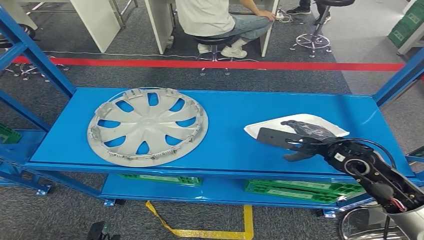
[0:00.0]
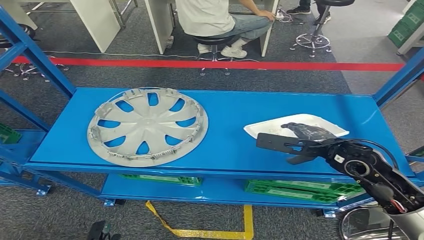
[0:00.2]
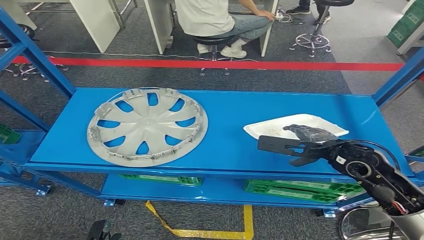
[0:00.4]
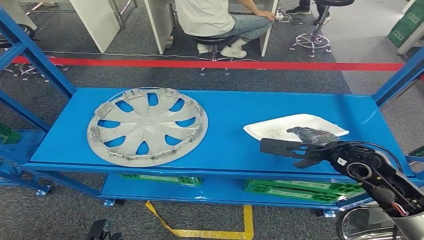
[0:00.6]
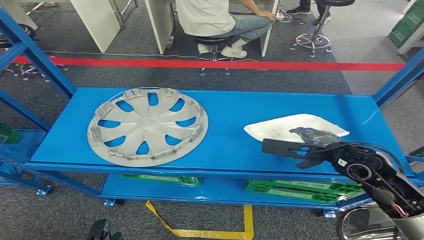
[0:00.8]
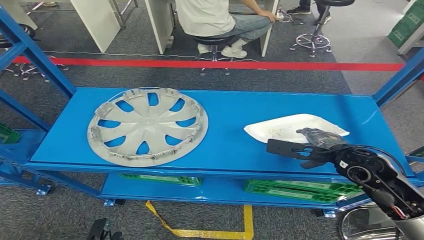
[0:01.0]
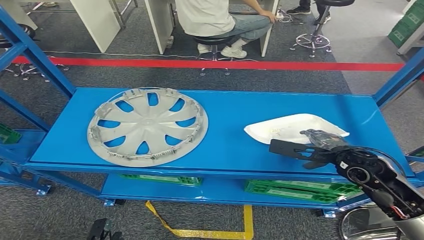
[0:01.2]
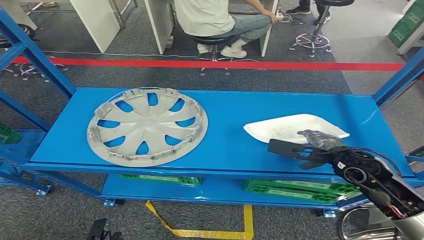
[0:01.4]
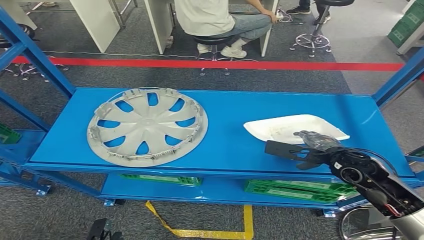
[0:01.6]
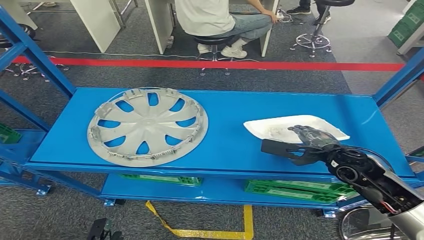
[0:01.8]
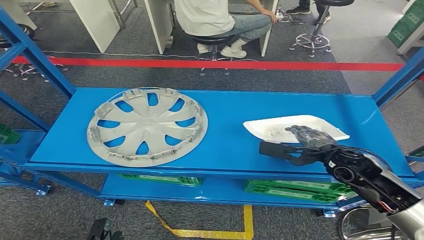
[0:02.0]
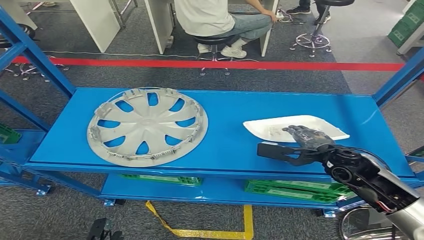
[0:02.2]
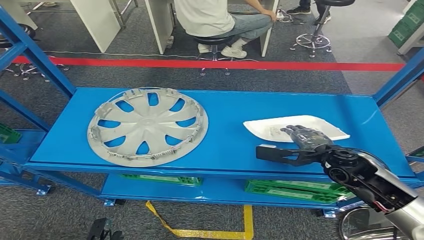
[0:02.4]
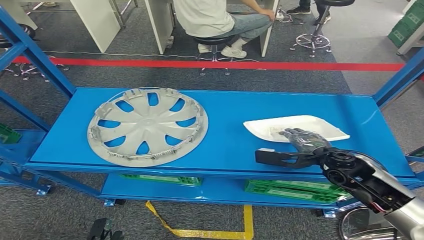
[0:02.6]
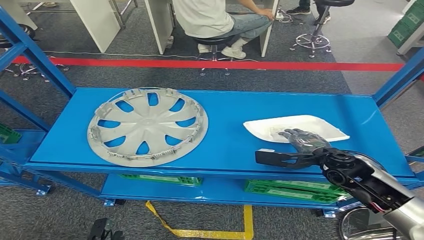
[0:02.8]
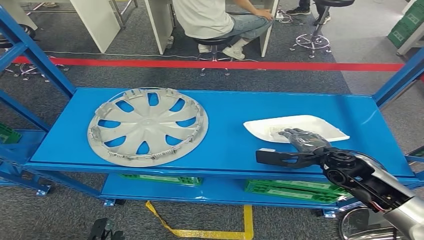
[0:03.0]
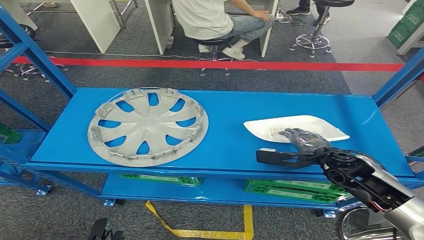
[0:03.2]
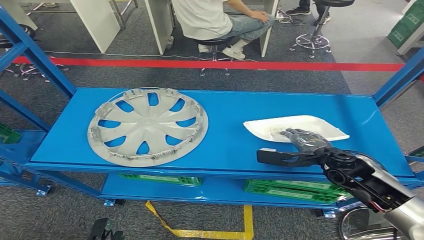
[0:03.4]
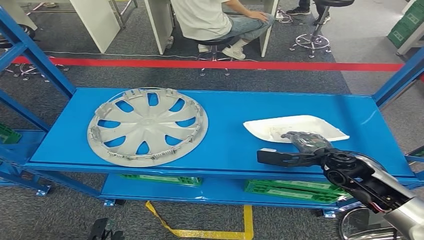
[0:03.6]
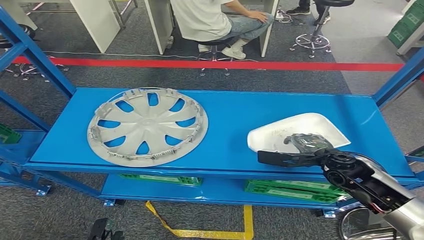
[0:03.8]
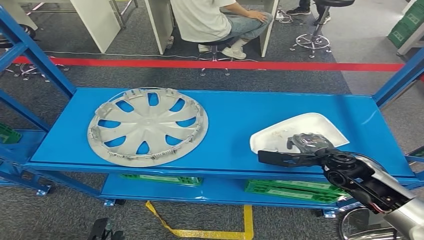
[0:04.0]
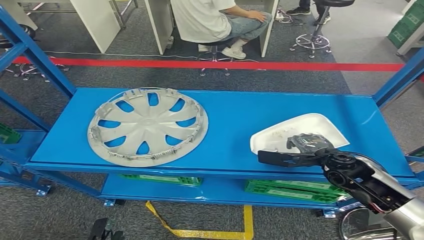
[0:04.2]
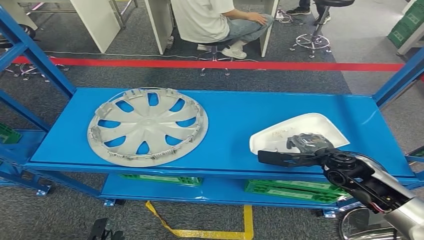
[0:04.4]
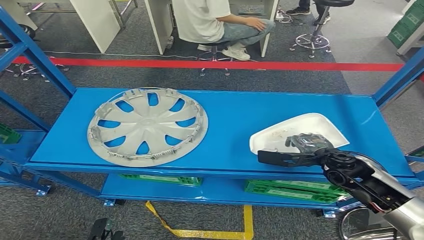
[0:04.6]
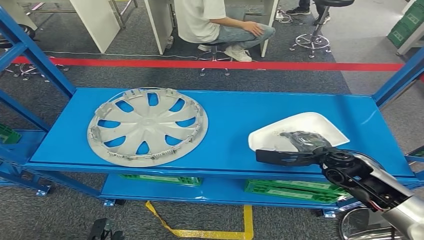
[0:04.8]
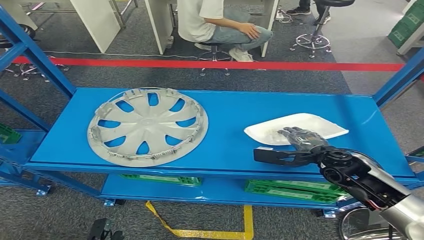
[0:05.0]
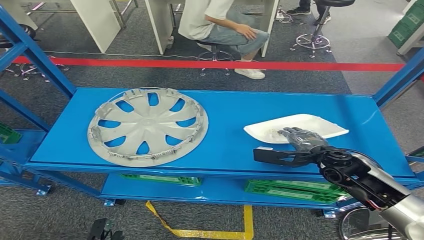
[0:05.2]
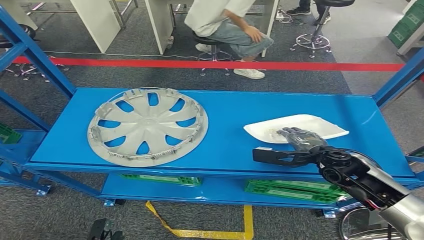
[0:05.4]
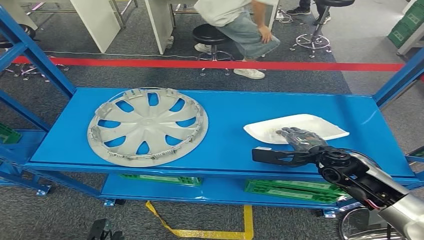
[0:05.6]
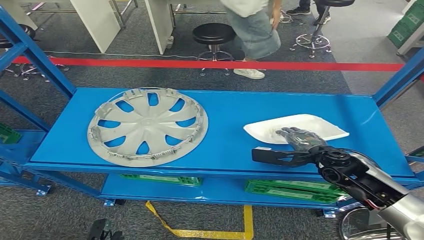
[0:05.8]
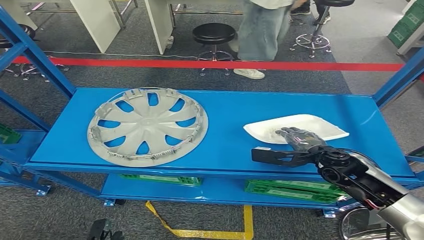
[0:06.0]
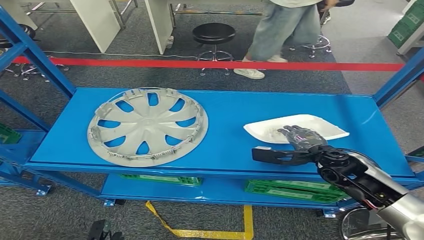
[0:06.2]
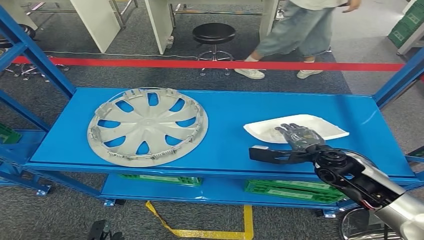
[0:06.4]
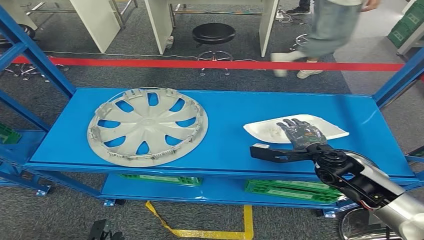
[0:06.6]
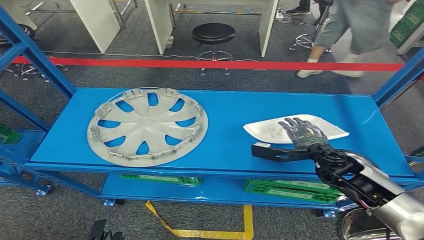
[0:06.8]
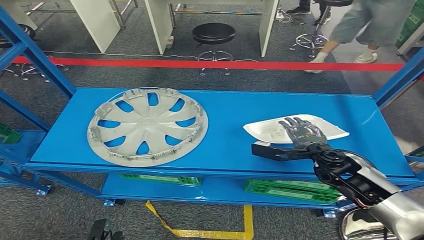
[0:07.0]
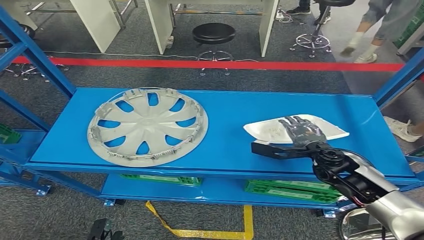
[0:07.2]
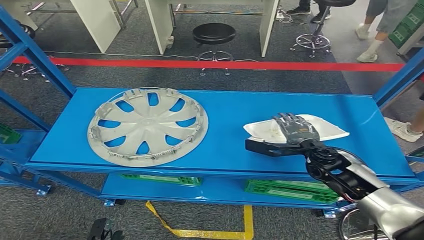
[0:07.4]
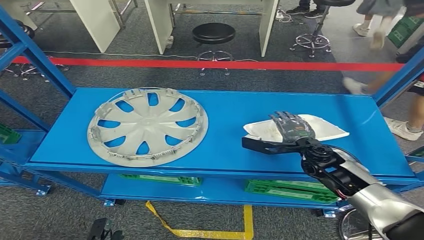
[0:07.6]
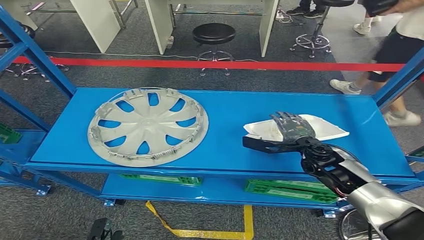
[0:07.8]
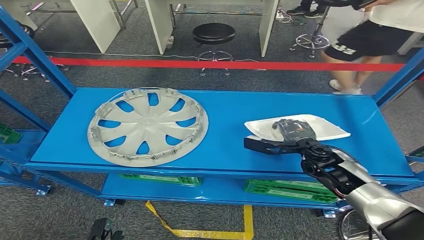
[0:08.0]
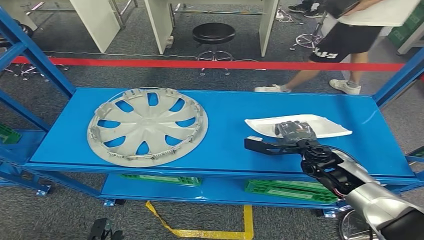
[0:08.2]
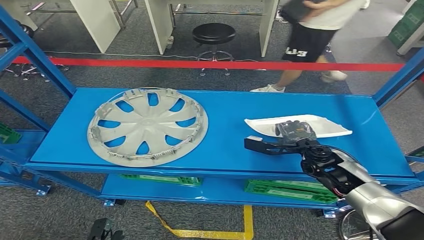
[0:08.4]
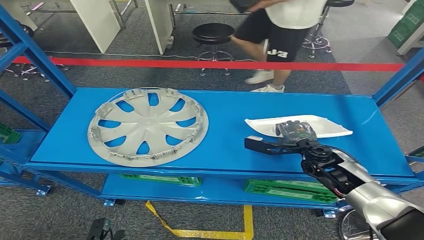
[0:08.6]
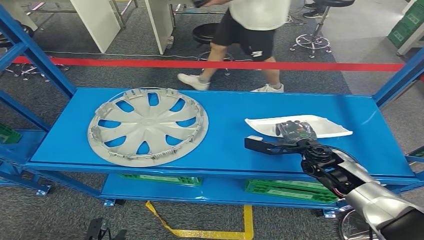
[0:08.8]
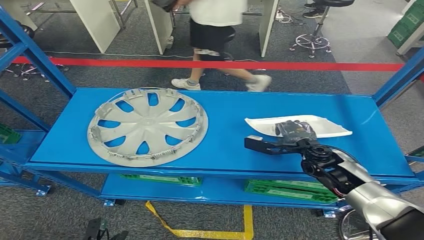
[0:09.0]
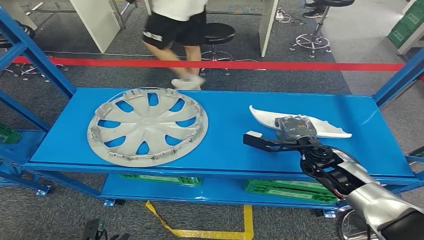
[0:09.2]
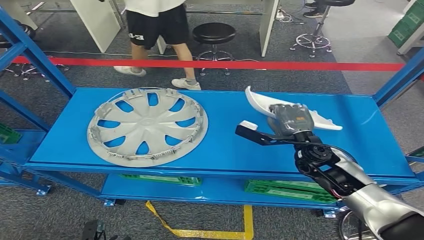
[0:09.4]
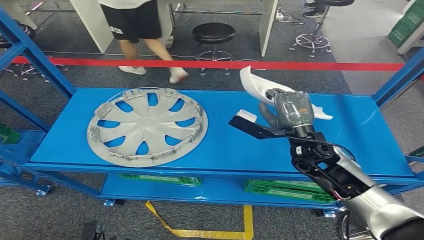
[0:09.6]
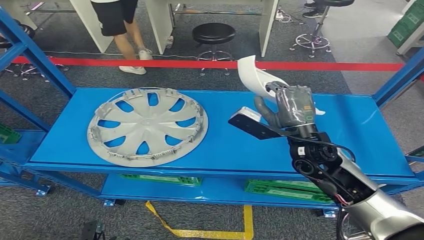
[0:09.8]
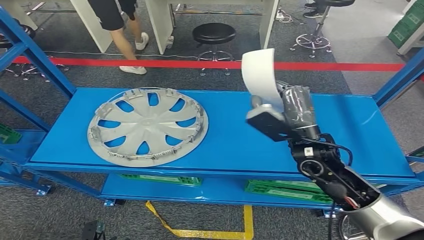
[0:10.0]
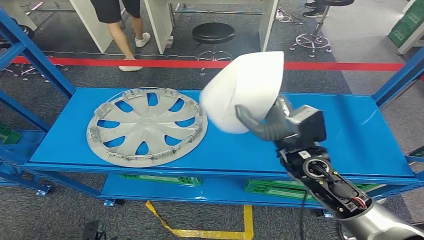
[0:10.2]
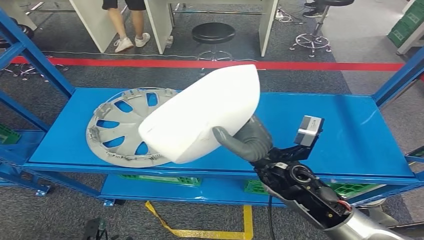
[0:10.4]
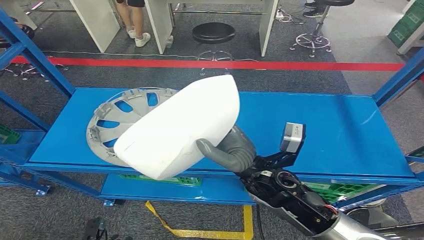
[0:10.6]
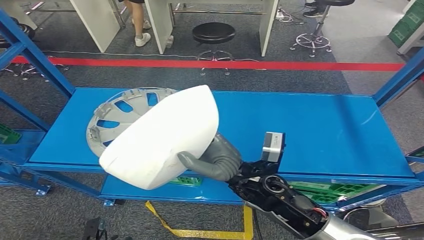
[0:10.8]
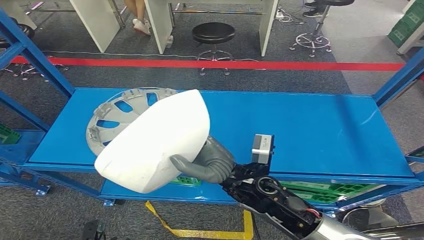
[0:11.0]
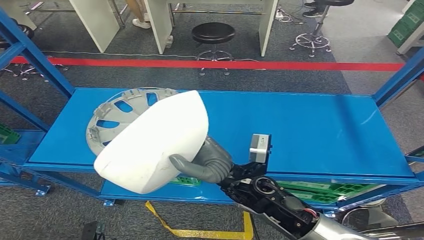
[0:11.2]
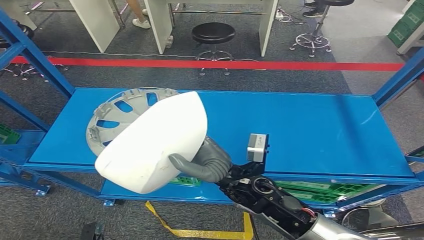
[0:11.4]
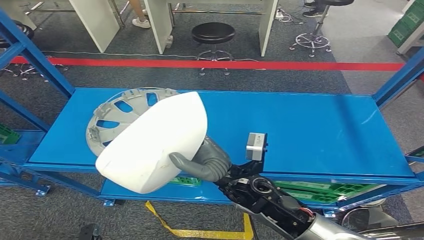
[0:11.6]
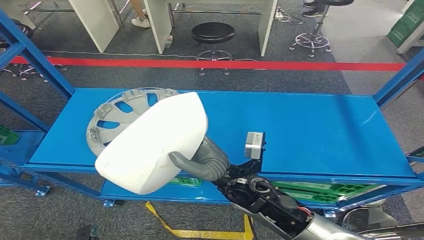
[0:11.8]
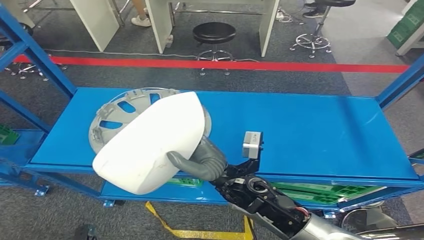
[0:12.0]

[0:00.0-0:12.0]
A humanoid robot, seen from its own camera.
Step, 0.0 to 12.0 s: Pick up the small parts from the shelf.
0.0 to 1.6 s: The hands stay close to where they were, moving slightly.
1.6 to 3.0 s: The hands move only a little.
3.0 to 4.4 s: Neither hand changes place.
4.4 to 9.0 s: The hands make only small movements.

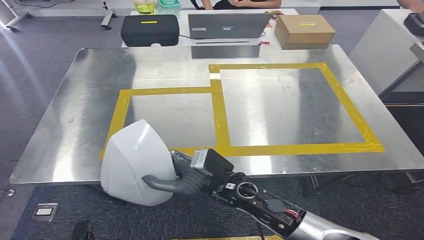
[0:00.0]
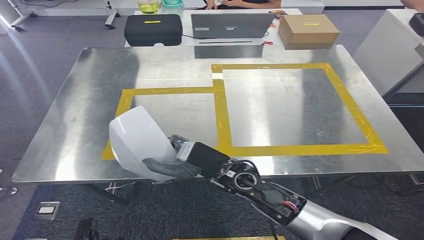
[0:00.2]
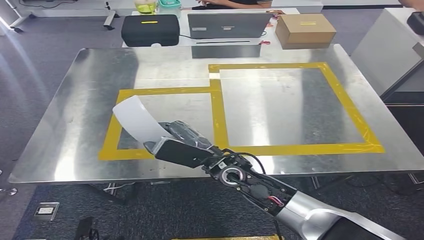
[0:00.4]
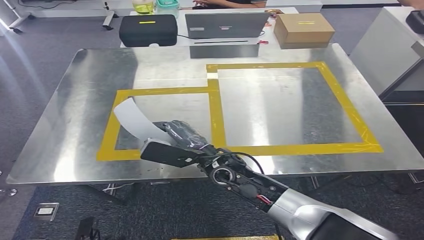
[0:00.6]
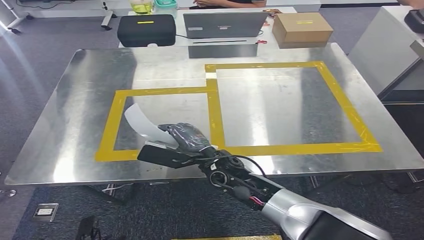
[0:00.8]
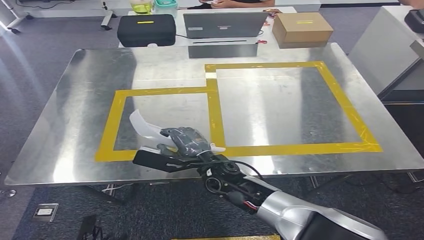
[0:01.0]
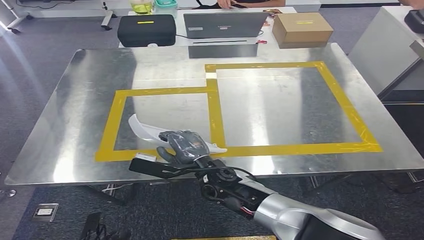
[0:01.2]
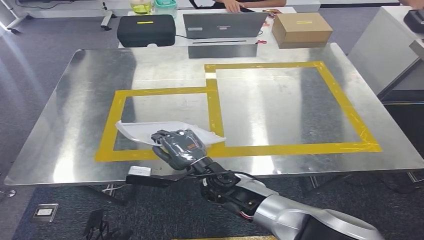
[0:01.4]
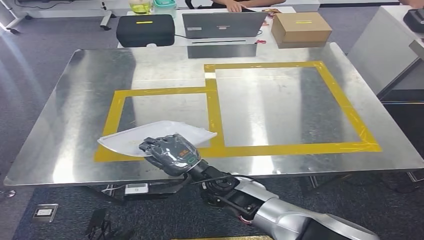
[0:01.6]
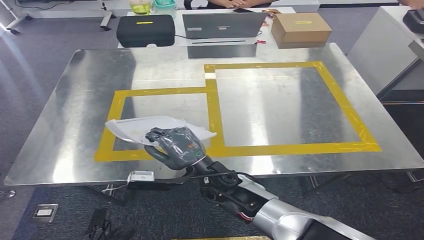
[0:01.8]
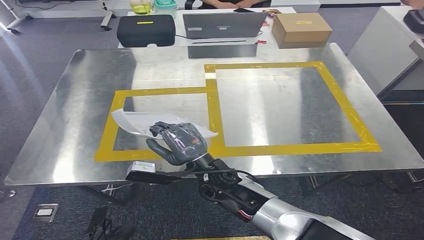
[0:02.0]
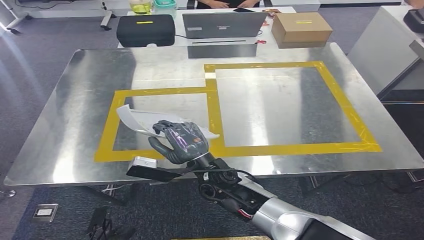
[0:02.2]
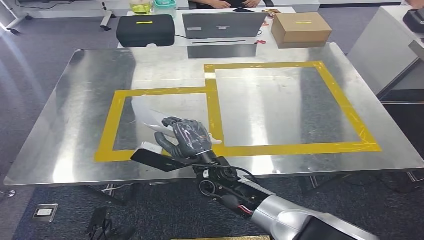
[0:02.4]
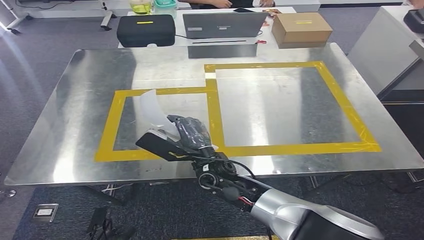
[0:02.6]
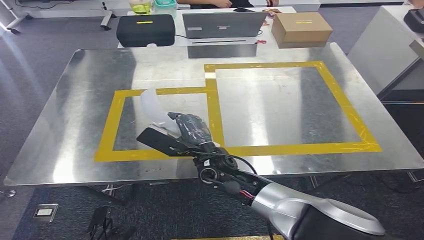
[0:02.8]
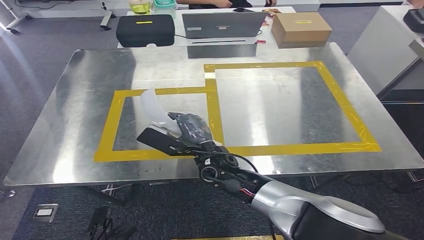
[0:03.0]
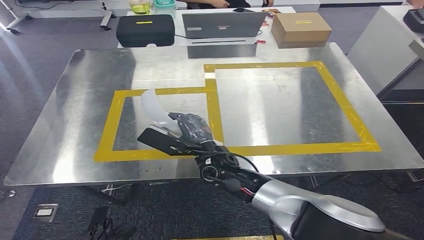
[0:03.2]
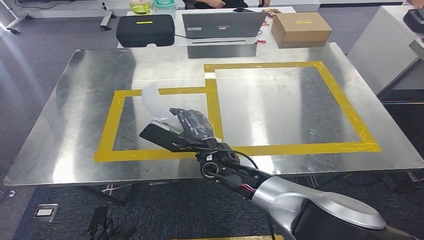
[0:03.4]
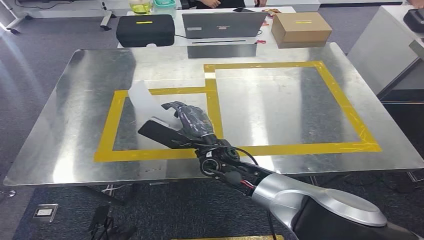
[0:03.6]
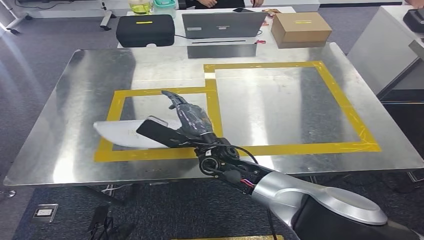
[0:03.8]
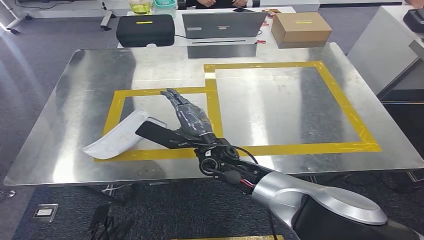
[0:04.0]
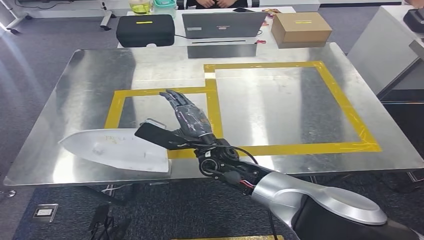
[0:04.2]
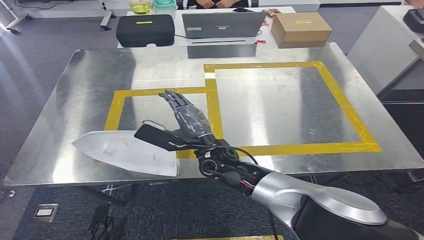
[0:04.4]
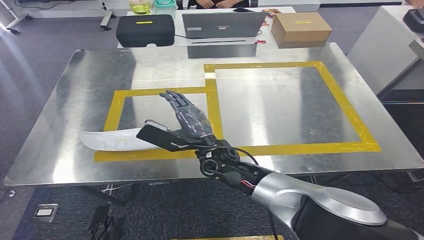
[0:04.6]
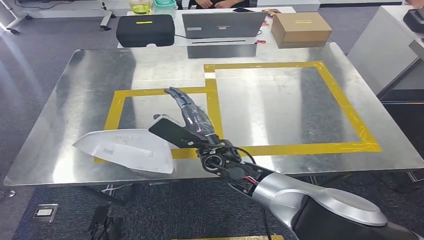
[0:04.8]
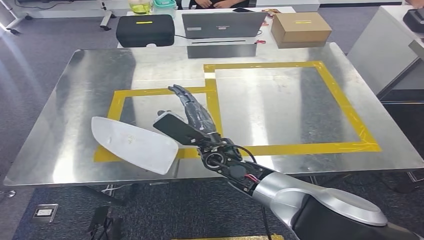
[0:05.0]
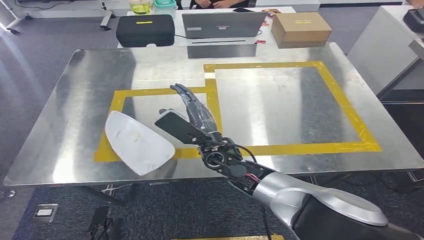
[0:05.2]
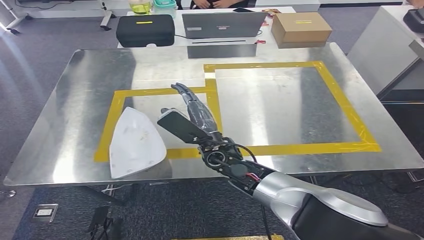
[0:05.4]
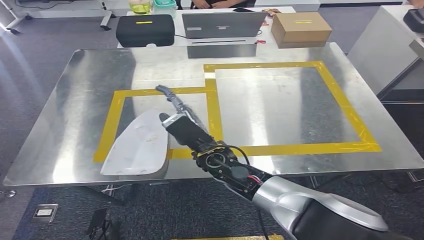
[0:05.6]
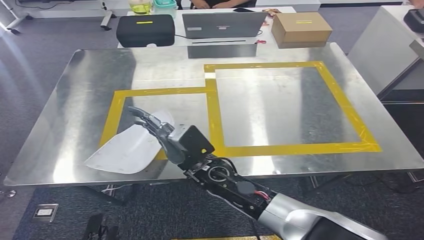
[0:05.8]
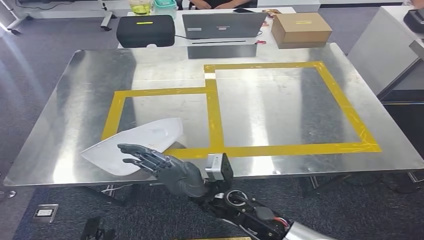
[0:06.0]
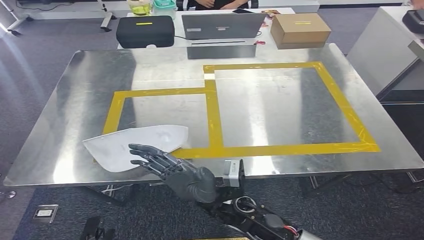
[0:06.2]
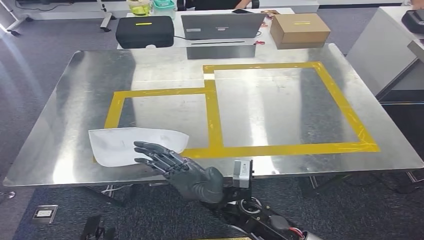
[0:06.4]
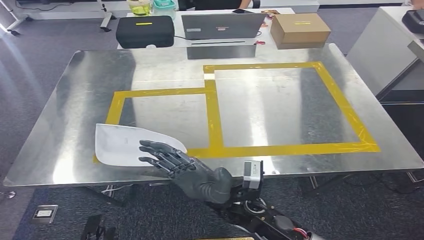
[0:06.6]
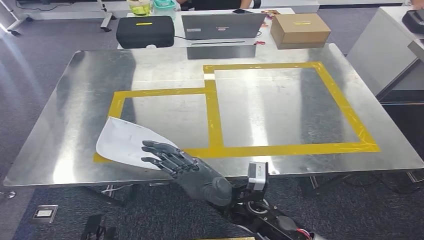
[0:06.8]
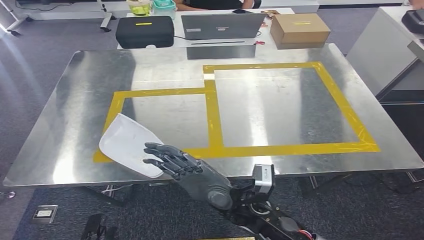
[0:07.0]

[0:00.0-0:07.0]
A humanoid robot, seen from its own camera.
Step, 0.8 to 6.2 s: Insert the small parts into the corresponding holes on the workbench.
0.0 to 1.4 s: The right hand moves approximately 5 cm.
2.8 to 4.2 s: The hands make only small movements.
5.6 to 7.0 s: The right hand moves backward and to the right, roughly 10 cm.
